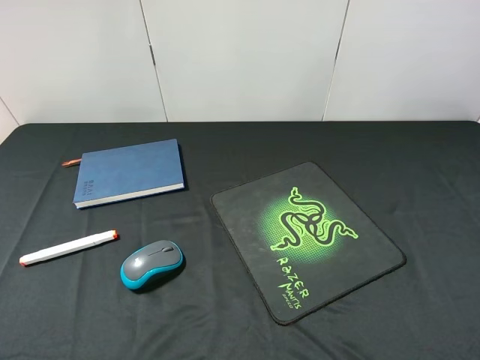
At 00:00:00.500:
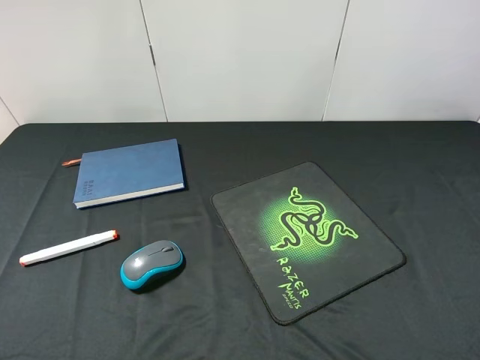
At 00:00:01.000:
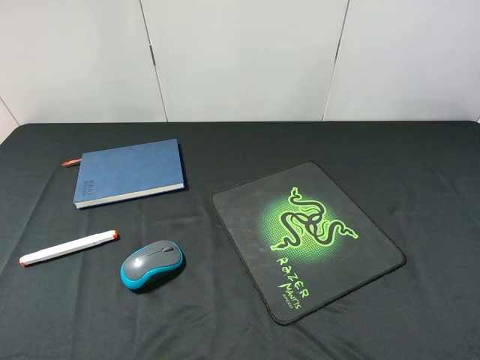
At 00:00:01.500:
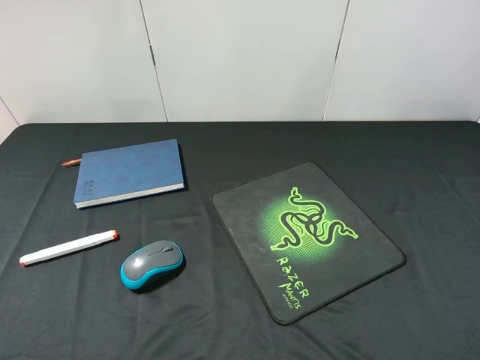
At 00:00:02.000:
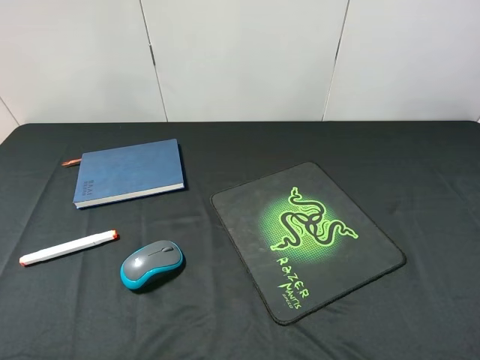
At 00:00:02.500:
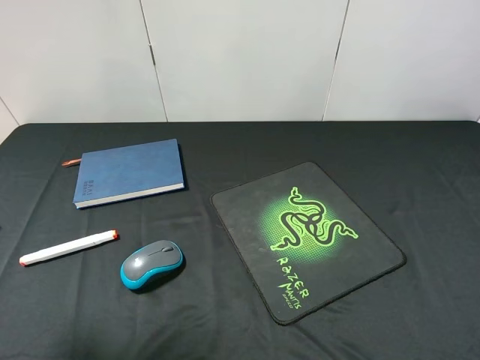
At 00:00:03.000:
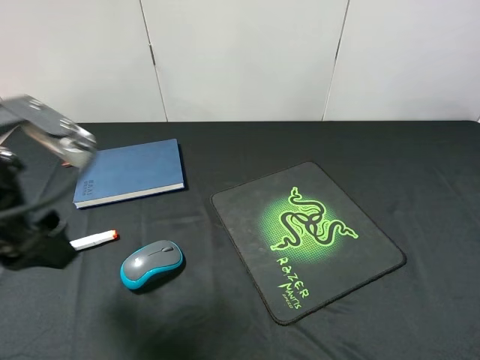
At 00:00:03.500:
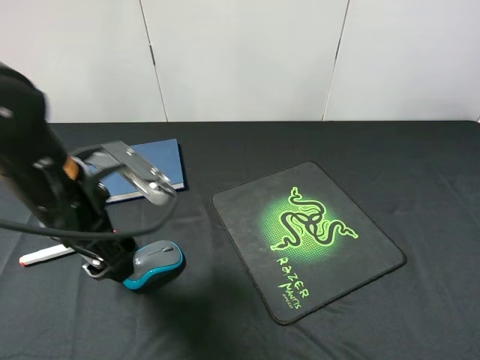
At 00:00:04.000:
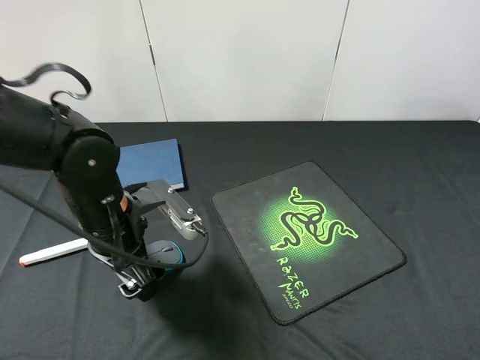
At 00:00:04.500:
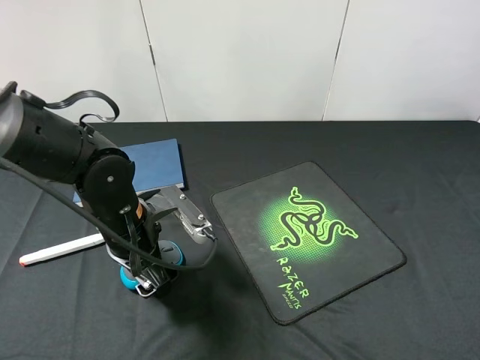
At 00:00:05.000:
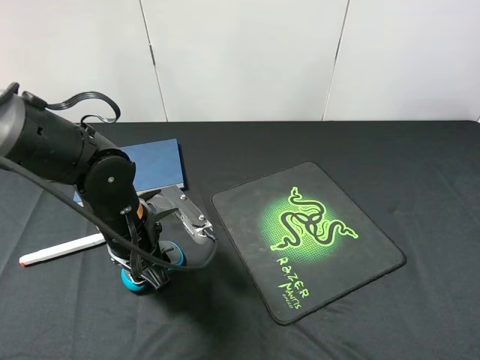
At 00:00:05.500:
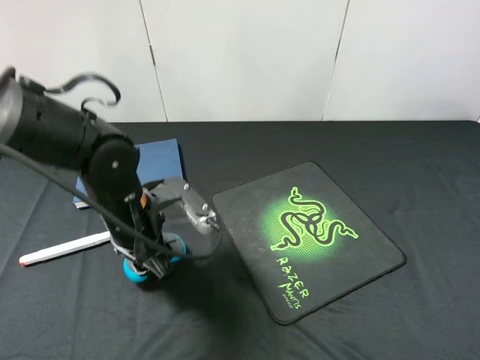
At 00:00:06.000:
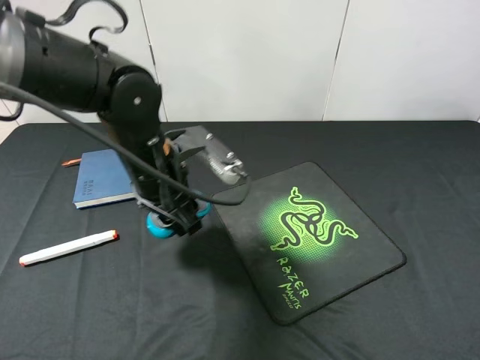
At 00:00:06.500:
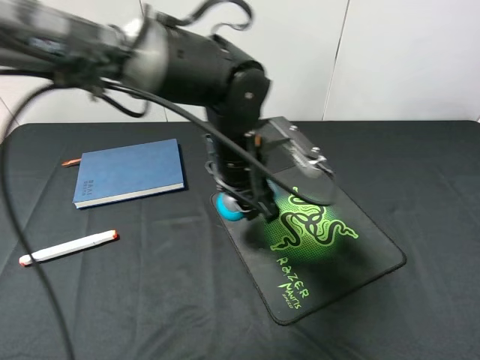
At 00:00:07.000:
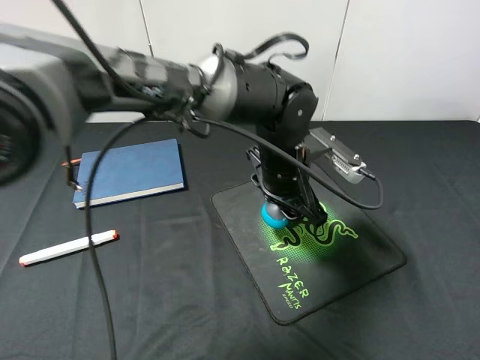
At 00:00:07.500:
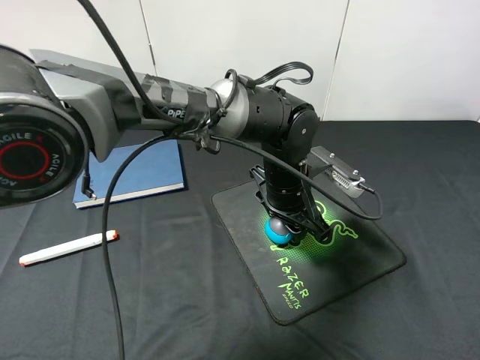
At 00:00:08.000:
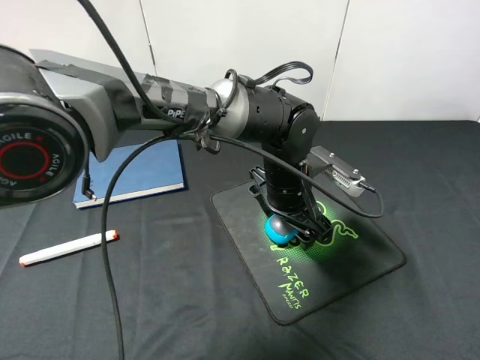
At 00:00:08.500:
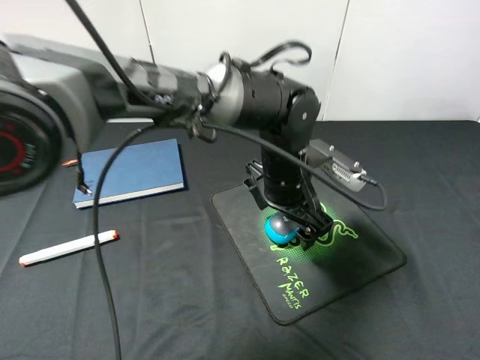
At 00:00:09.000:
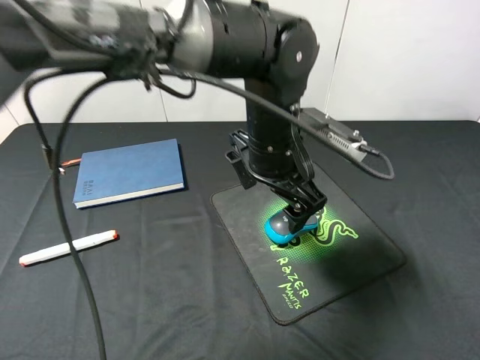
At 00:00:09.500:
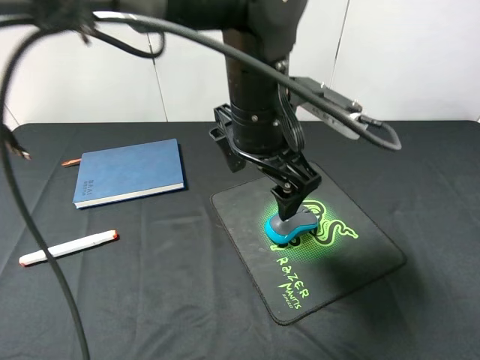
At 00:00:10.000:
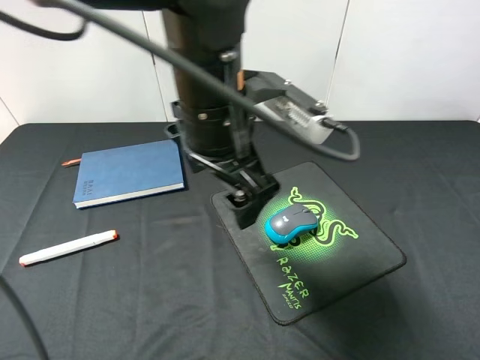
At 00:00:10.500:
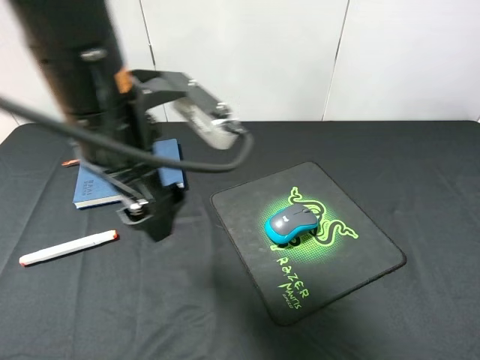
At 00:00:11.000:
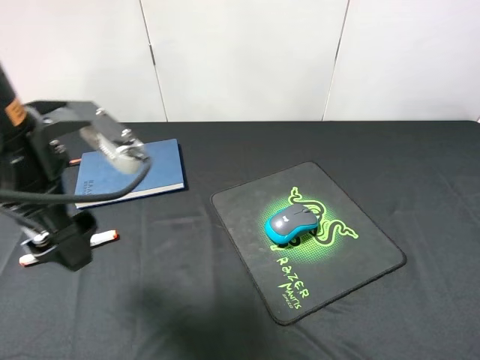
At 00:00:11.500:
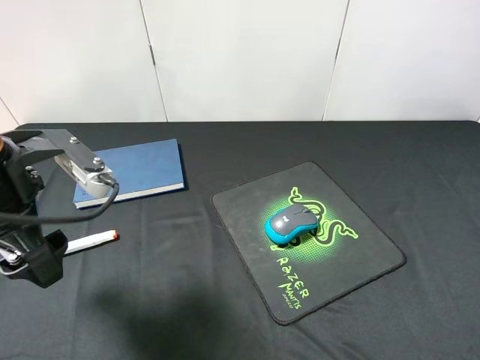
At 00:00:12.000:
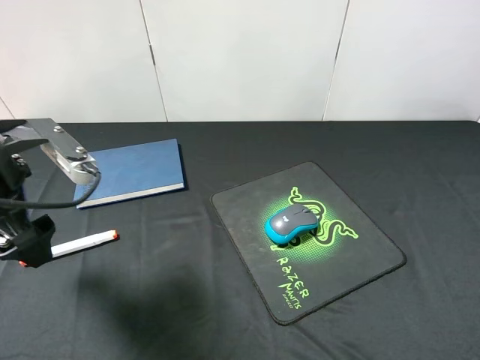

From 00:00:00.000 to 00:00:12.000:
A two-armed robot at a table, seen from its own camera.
Step, from 00:00:00.000 to 00:00:05.500: Pick up the mouse with left gripper.
Step, from 00:00:06.000 to 00:00:08.500: Place the mouse on the mouse pad with left gripper.
From 00:00:02.000 to 00:00:04.000: The left gripper heads downward, to the right and forward, covering roughly 30 cm.
From 00:00:04.000 to 00:00:06.000: The left gripper heads forward and to the right, covering roughly 5 cm, and closes up.
From 00:00:06.000 to 00:00:08.000: The left gripper is displaced to the right by approximately 15 cm, and opens.
From 00:00:08.000 to 00:00:10.000: The left gripper moves upward and to the left, about 20 cm.
From 00:00:10.000 to 00:00:12.000: The left gripper is displaced to the left by about 25 cm.

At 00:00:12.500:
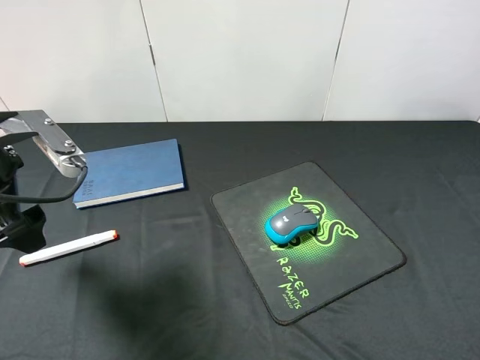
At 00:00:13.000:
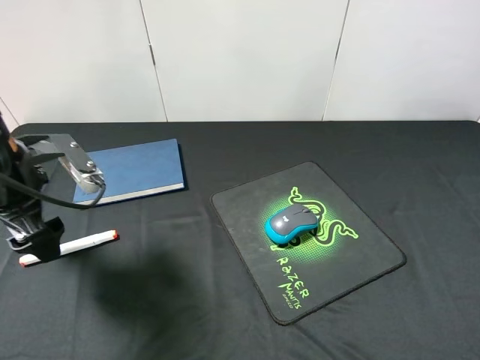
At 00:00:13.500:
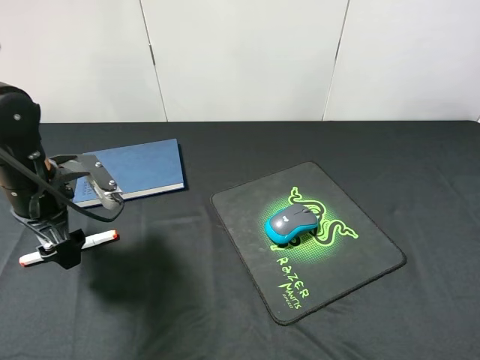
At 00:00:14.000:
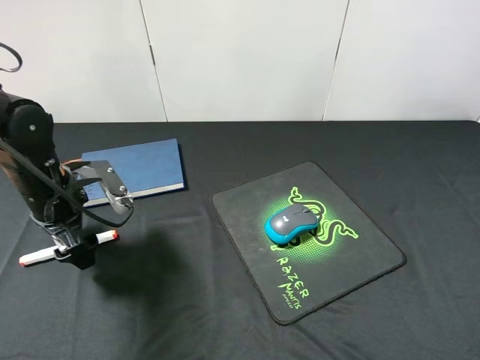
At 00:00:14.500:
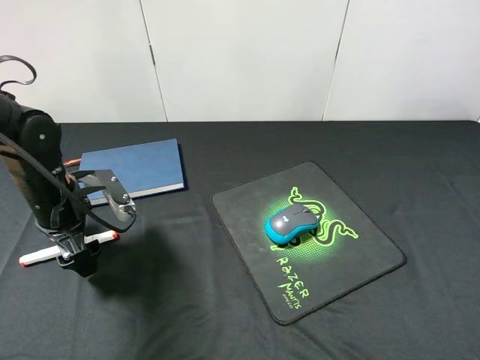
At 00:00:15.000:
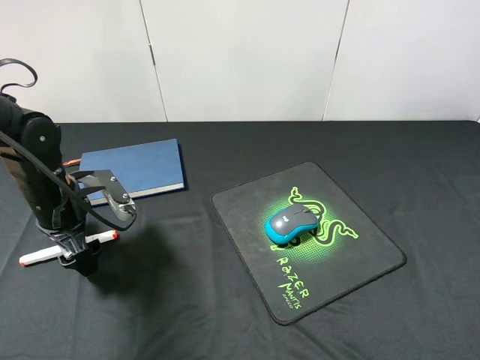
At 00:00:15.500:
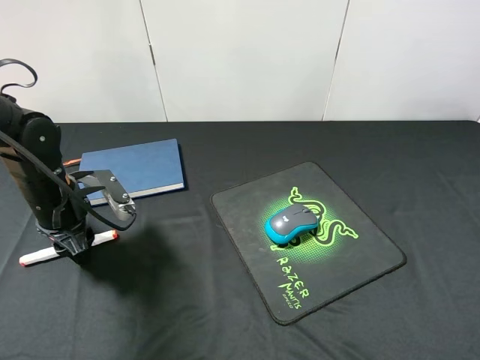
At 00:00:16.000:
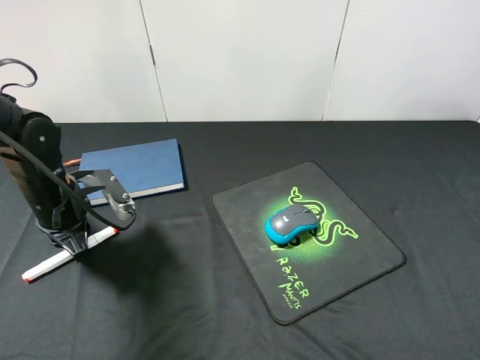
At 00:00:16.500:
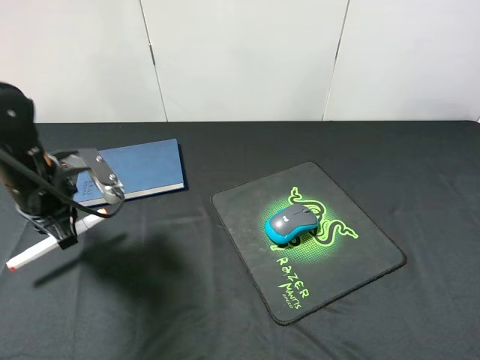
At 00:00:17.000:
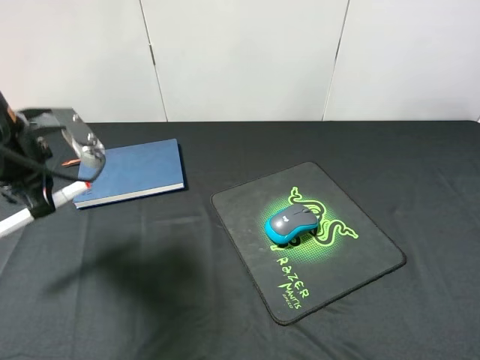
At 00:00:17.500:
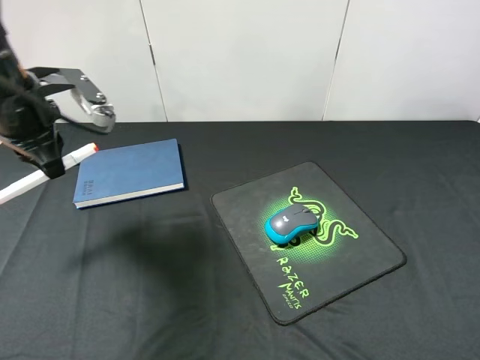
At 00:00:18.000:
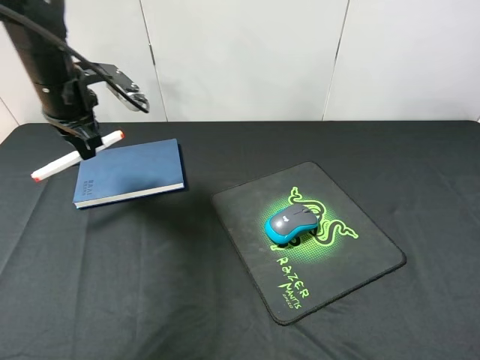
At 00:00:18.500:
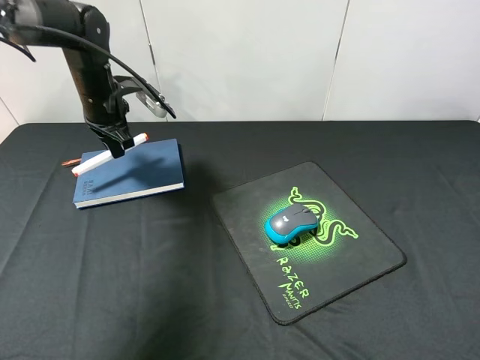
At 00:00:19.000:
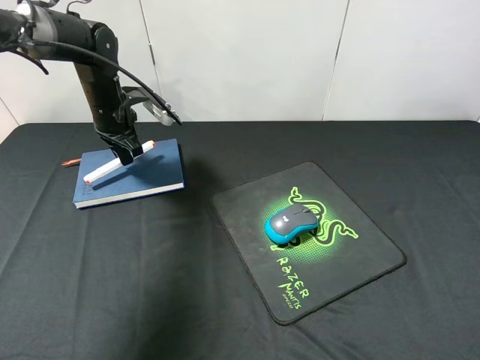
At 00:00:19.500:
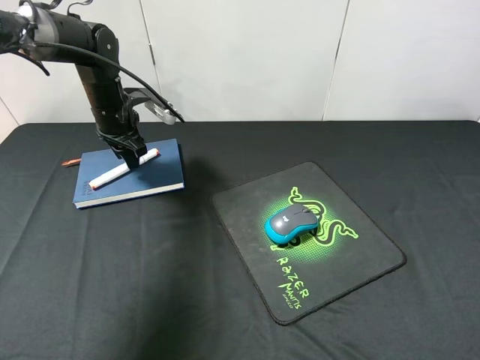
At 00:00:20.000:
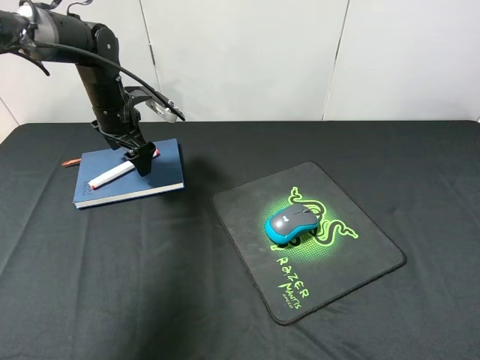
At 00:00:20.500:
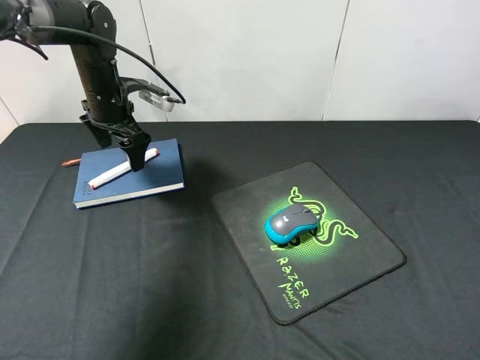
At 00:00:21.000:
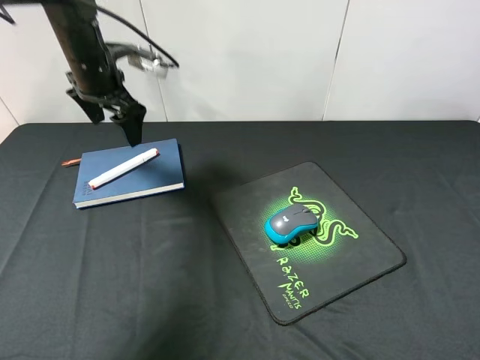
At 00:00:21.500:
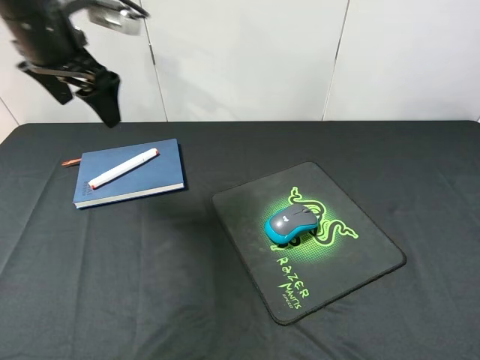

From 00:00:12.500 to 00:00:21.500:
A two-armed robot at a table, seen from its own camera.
Step, from 00:00:12.500 to 00:00:16.500: Pick up the marker pen with left gripper.
Step, from 00:00:17.000 to 00:00:20.000: Place the marker pen on the notebook with left gripper.
From 00:00:12.500 to 00:00:14.500: The left gripper is displaced downward and forward by about 15 cm.
From 00:00:14.500 to 00:00:17.000: The left gripper shifts roughly 10 cm upward, and closes its fingers.
From 00:00:17.000 to 00:00:19.500: The left gripper is displaced forward by roughly 20 cm.
From 00:00:19.500 to 00:00:21.500: The left gripper heads upward and backward, covering about 20 cm, and opens its fingers.

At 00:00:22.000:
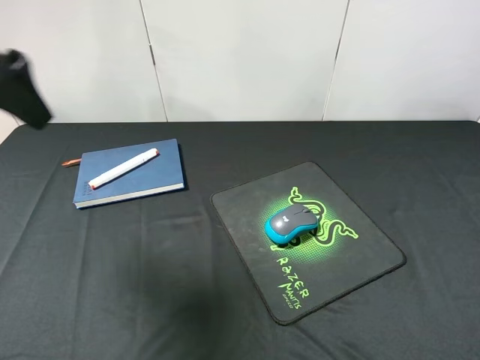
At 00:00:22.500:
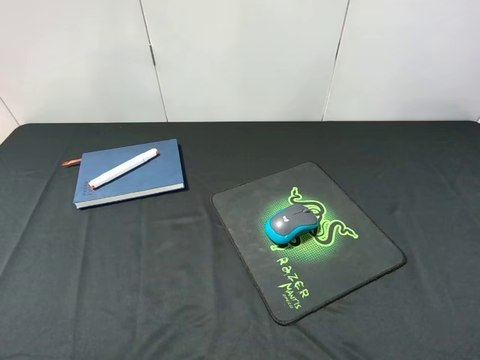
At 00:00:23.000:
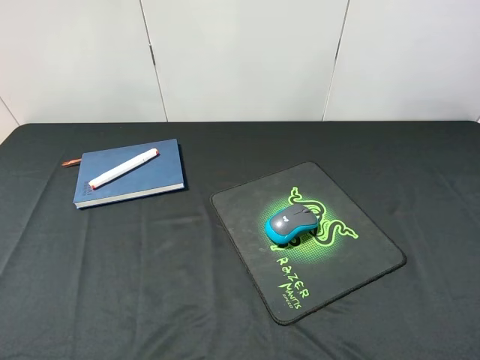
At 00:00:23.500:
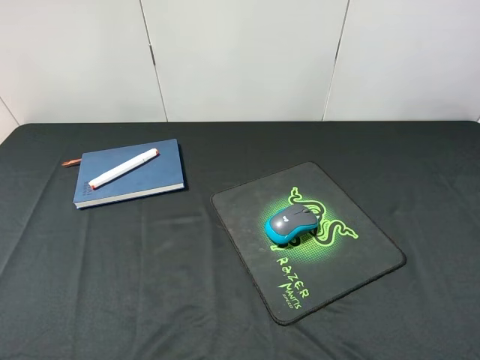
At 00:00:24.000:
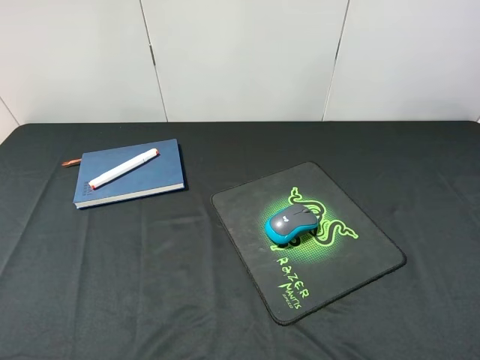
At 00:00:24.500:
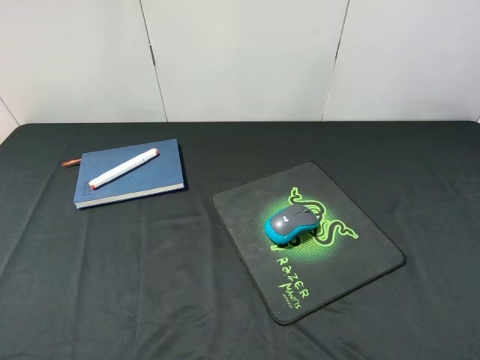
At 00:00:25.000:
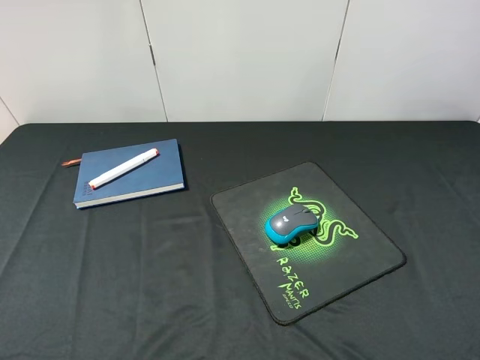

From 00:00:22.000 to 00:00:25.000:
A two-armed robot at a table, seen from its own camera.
From 00:00:22.000 to 00:00:23.500: The left gripper is displaced backward and downward by some 25 cm.
From 00:00:23.500 to 00:00:25.000: Both grippers stay about where they are.
